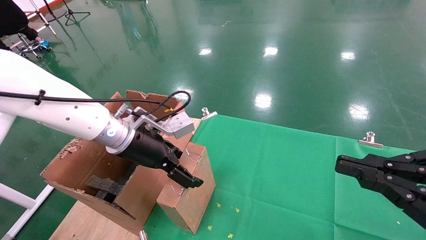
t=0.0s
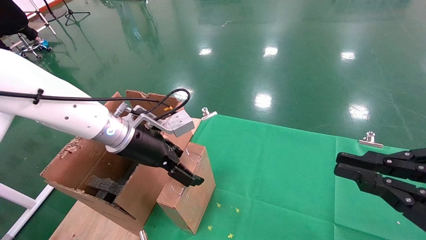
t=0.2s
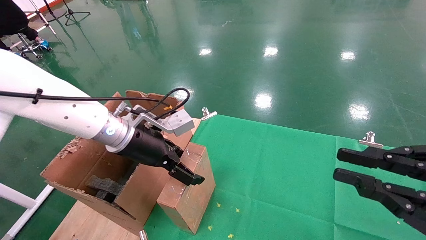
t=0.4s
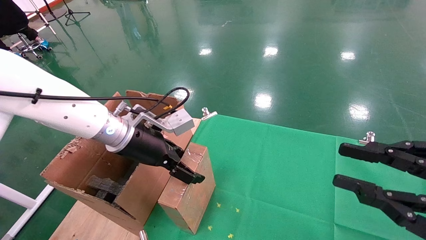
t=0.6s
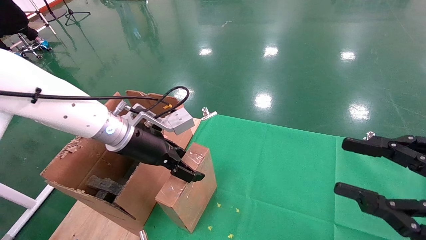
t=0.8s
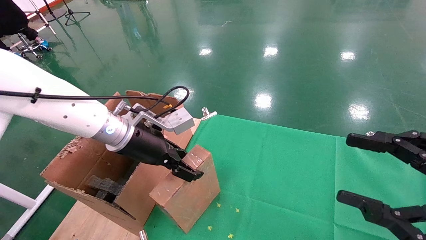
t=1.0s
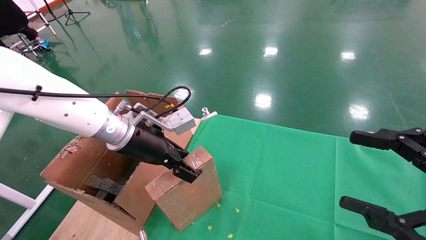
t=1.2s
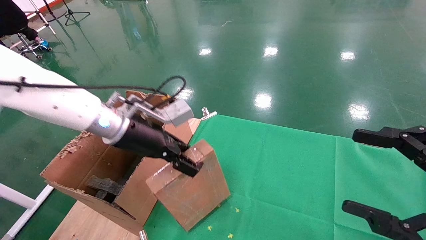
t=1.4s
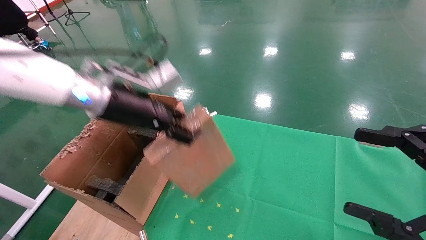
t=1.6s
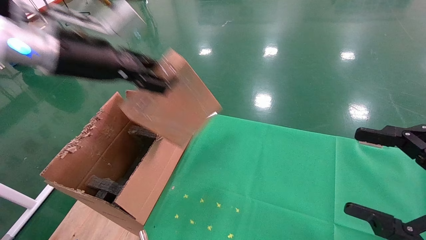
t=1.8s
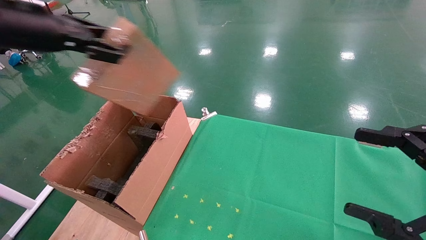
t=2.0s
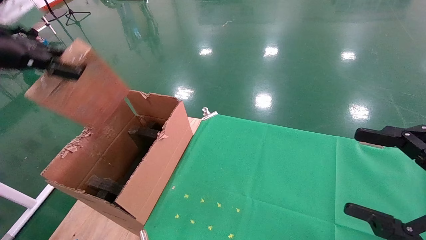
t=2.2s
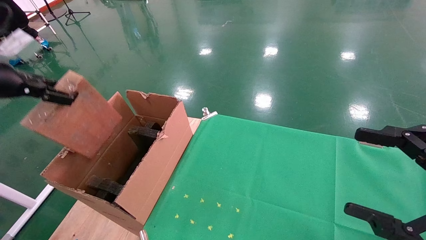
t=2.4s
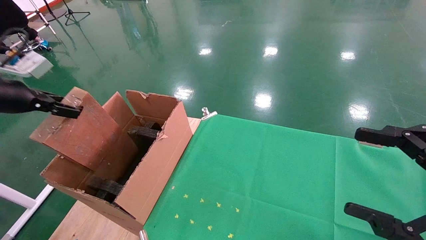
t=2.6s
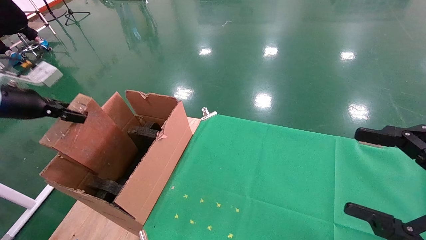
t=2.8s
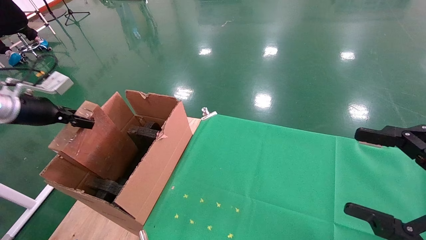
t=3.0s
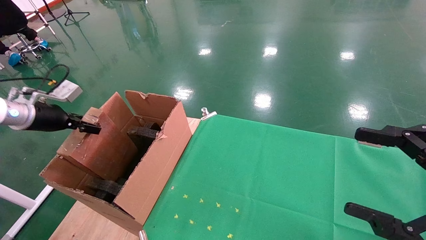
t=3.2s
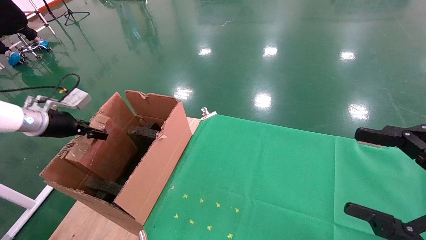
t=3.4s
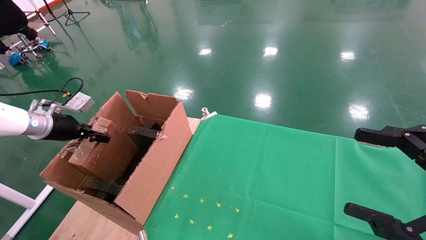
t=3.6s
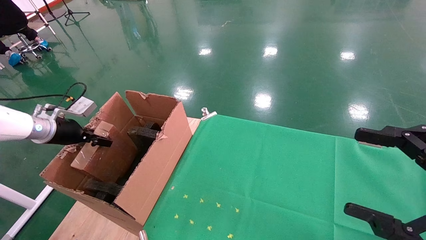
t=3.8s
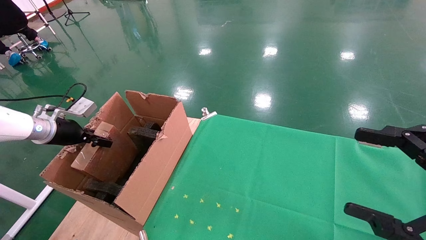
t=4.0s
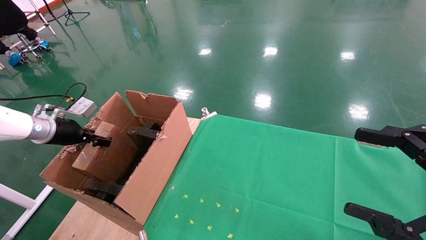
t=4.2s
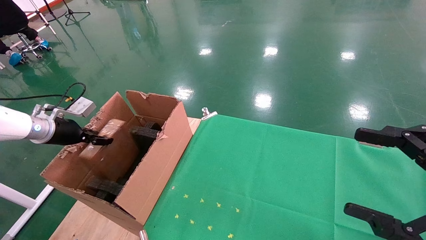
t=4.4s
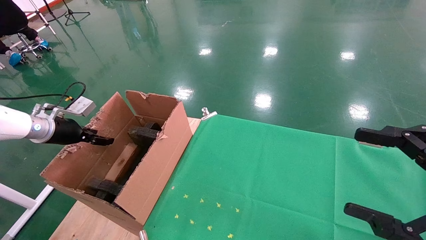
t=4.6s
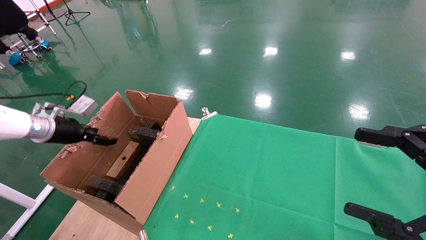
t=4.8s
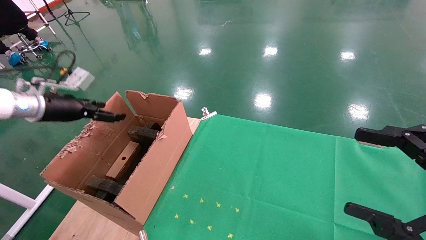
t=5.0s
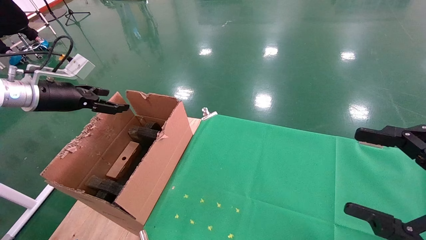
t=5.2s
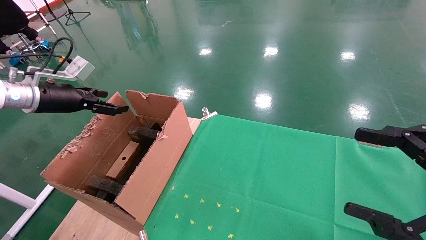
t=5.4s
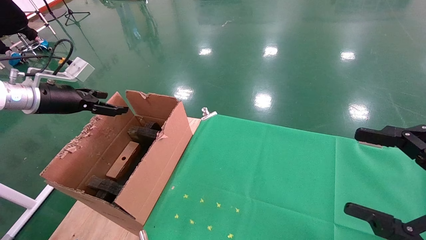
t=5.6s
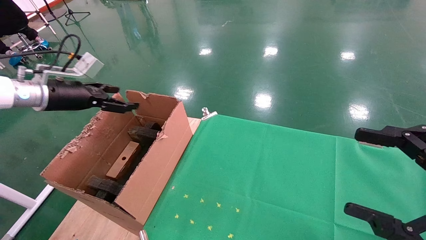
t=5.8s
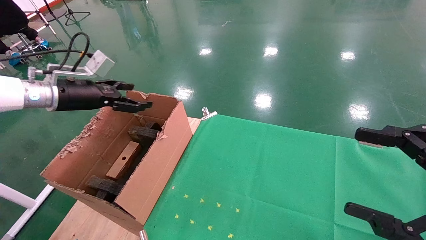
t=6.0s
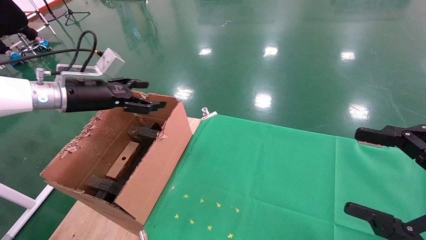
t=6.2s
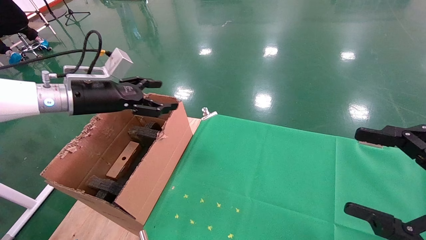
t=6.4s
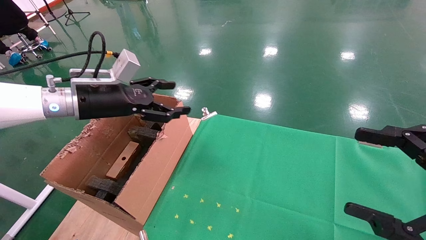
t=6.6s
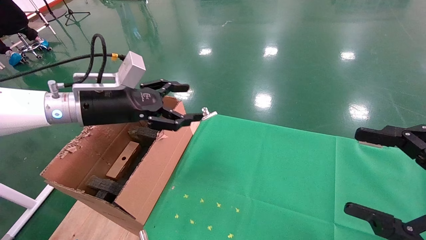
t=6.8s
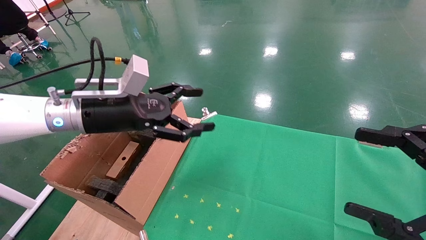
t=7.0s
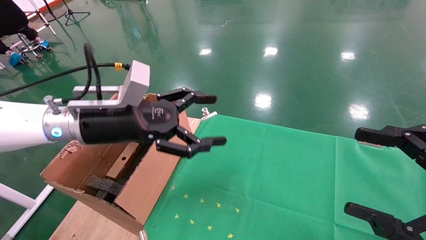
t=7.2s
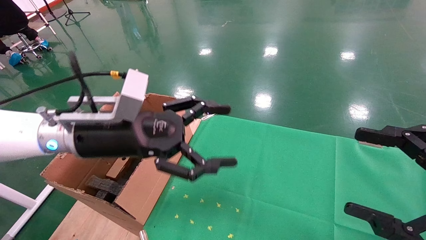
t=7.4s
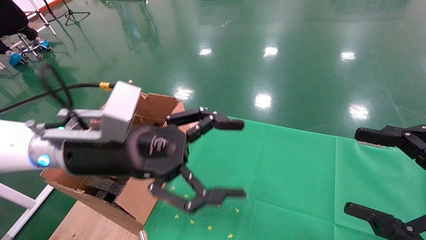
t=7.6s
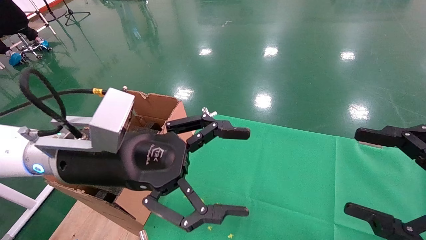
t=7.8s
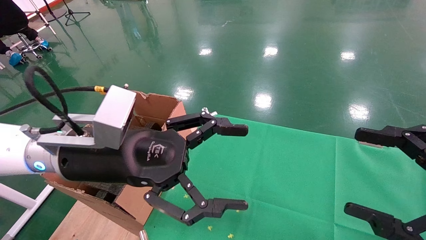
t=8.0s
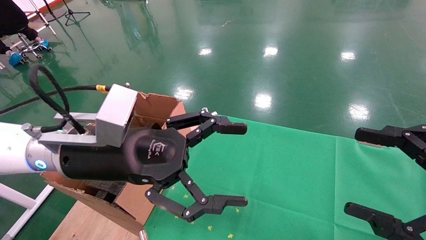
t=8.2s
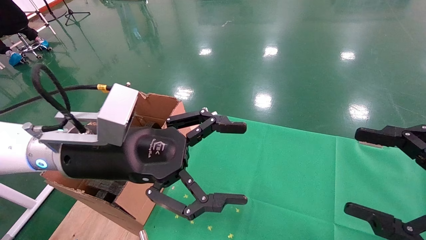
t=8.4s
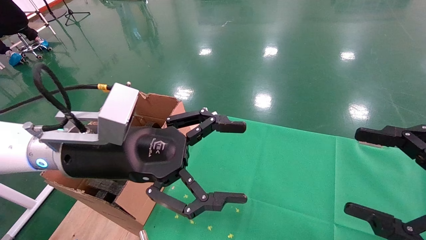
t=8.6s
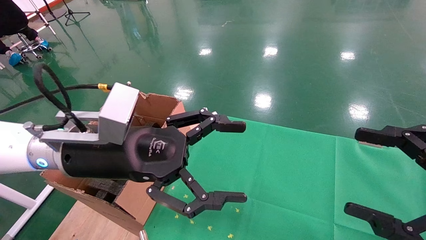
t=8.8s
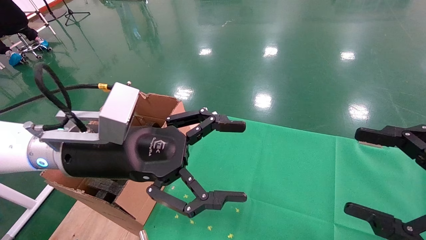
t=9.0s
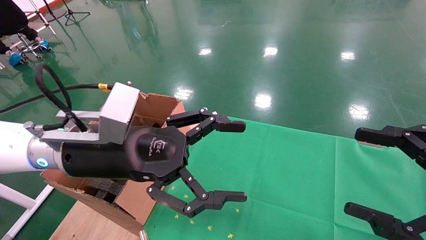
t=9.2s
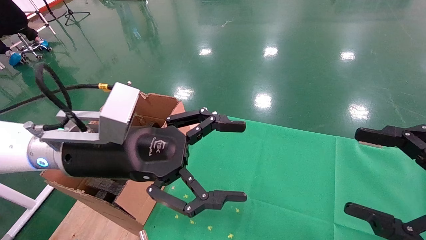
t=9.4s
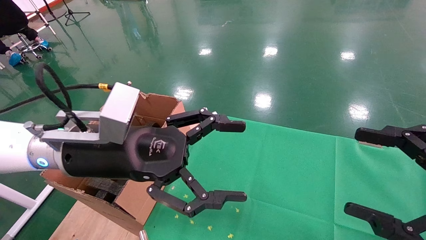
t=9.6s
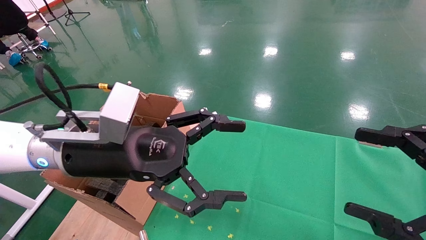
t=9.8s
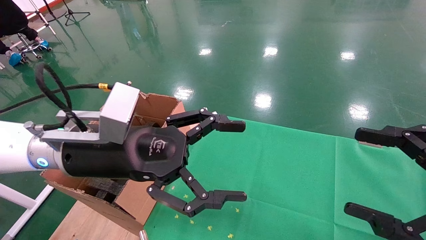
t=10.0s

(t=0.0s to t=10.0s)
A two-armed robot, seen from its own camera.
Task of the whole recording: using a robotic arm to pick up a cardboard box and palace it the carton.
Step, t=1.2s - t=4.2s: Place the mouse and the power cord paper box into the container.
t=0.0s - t=1.4s: The right gripper opens. The left gripper closes.
t=1.4s - t=2.8s: The left gripper is displaced to the left by roughly 30 cm.
t=2.8s - t=4.2s: The left gripper shifts about 10 cm downward and forward.
t=4.2s - t=5.8s: The left gripper shifts some 10 cm upward and to the right, and opens up.
t=5.8s - t=7.2s: The left gripper shifts approximately 20 cm to the right.
t=7.2s - t=8.6s: The left gripper is displaced backward and to the right by some 10 cm.
t=8.6s - t=10.0s: Both grippers stay about where they are.

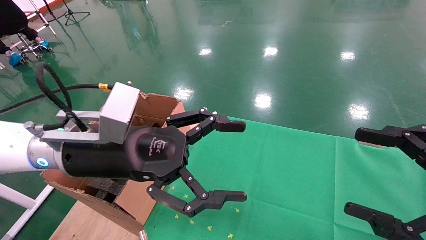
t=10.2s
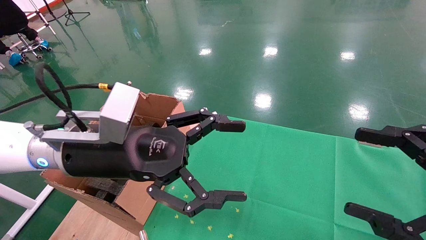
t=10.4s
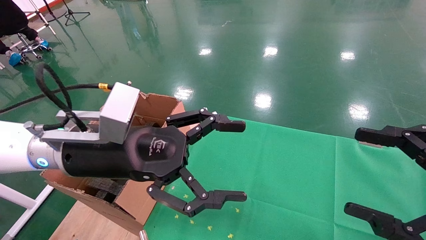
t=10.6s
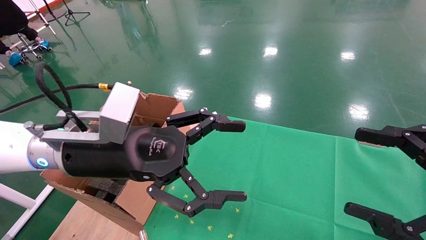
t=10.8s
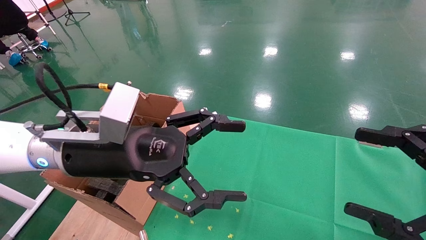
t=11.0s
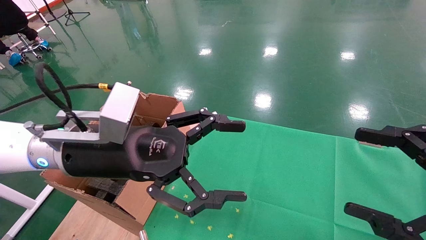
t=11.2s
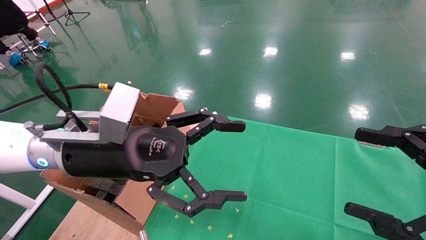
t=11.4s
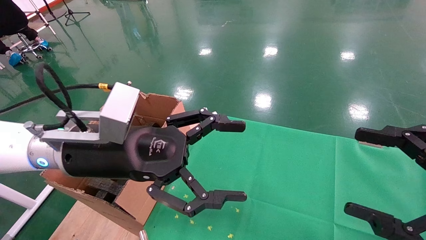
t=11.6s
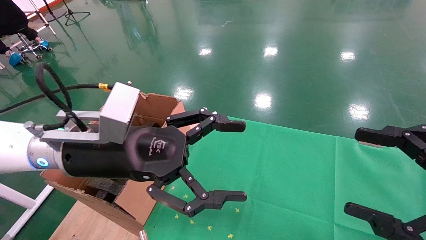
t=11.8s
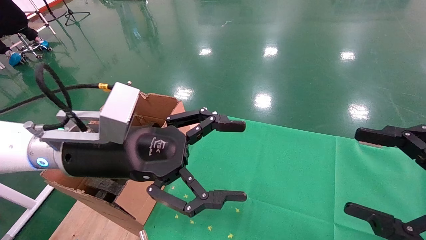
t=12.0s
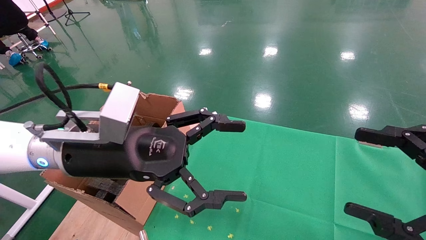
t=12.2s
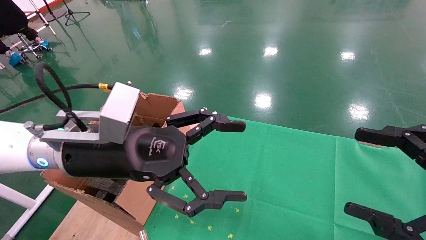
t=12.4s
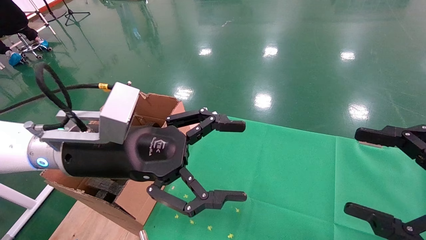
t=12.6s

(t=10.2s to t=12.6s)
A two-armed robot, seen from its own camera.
Task of the whole recording: using a robotic arm to pick up a cardboard box and palace it the carton.
t=10.2s - t=12.6s: Both grippers stay put.
